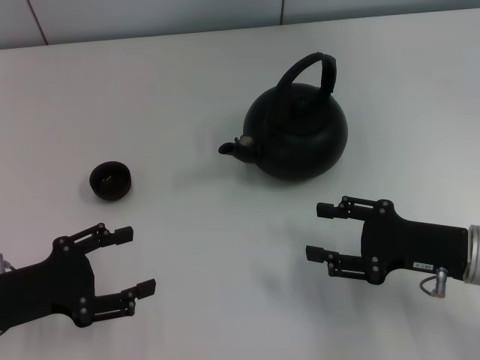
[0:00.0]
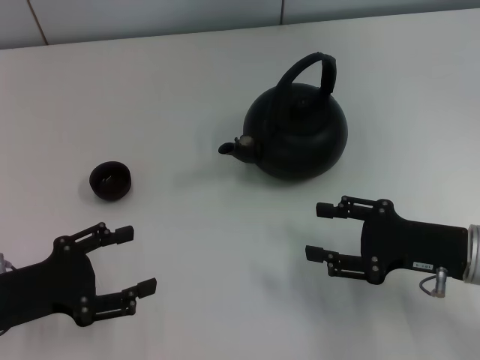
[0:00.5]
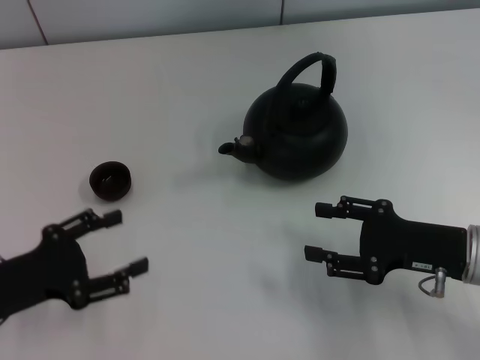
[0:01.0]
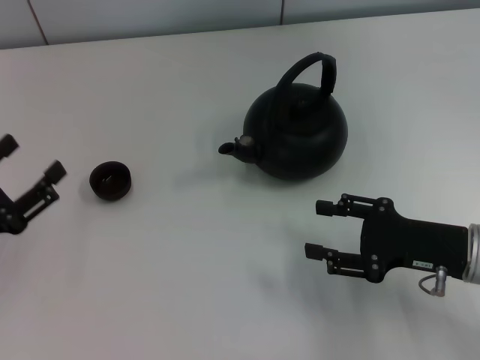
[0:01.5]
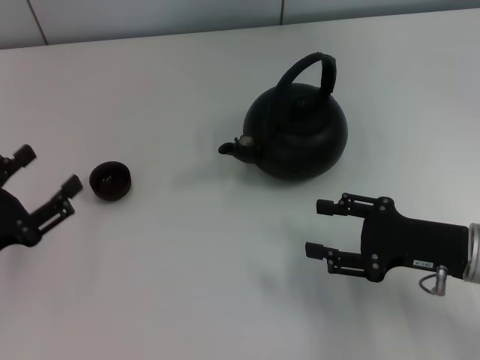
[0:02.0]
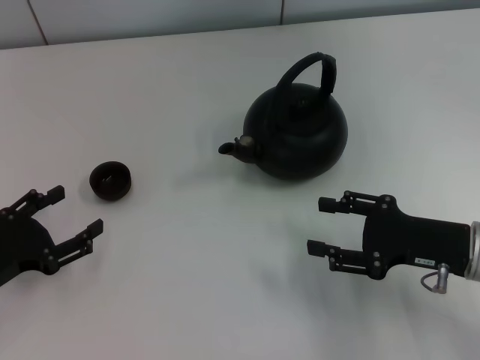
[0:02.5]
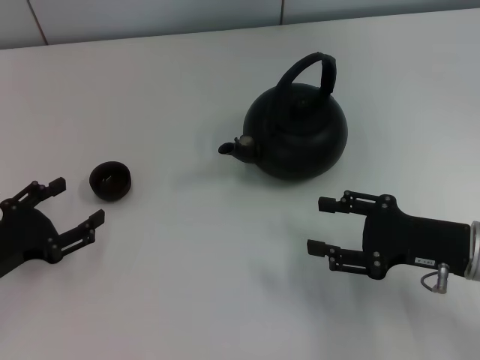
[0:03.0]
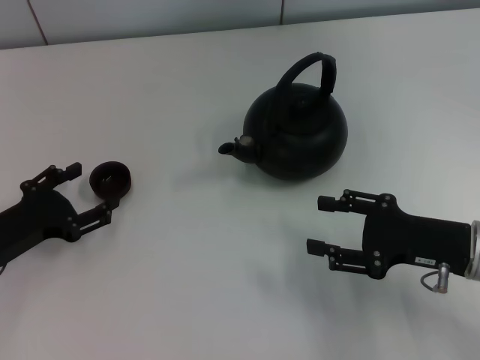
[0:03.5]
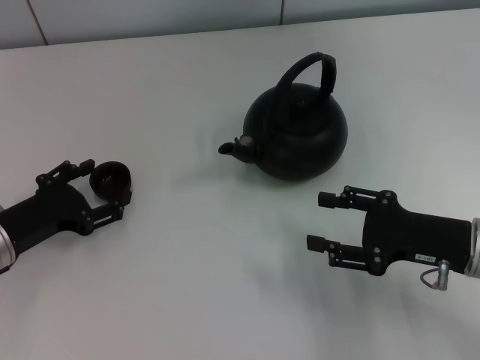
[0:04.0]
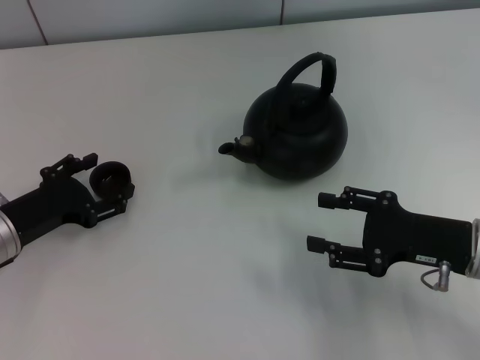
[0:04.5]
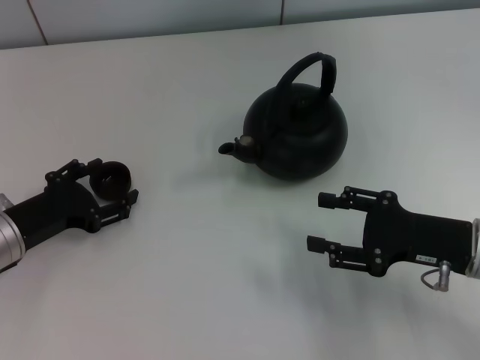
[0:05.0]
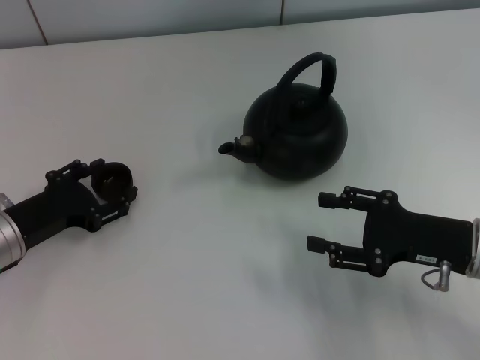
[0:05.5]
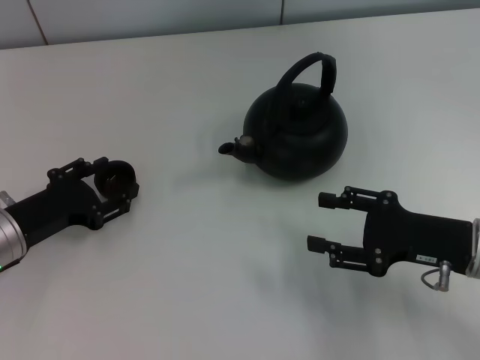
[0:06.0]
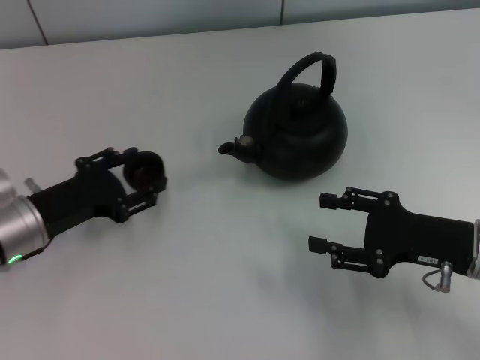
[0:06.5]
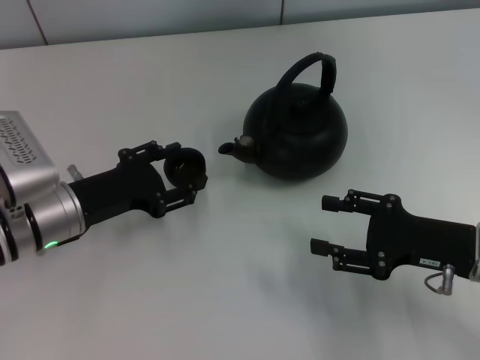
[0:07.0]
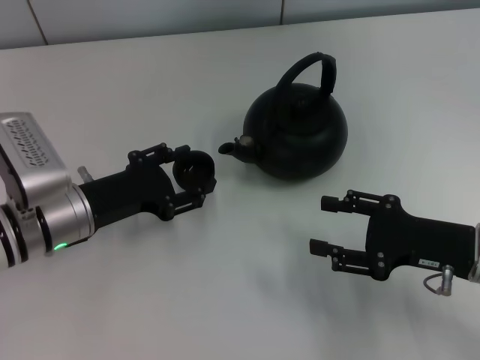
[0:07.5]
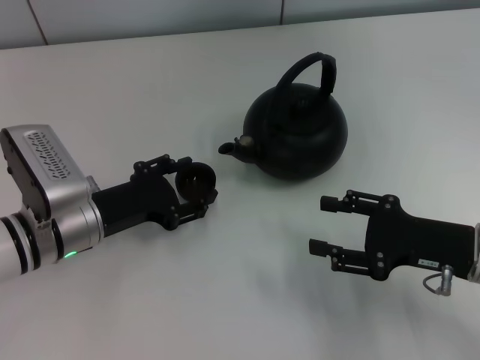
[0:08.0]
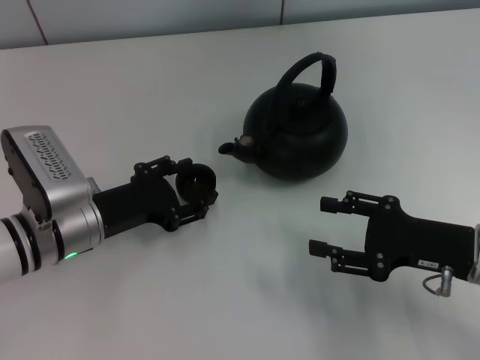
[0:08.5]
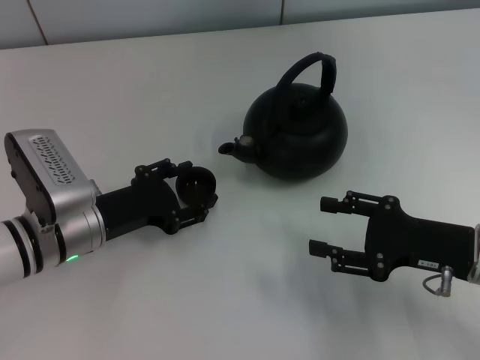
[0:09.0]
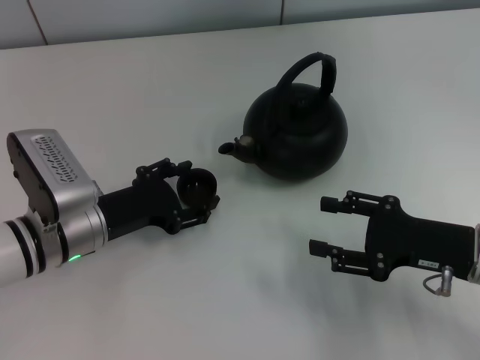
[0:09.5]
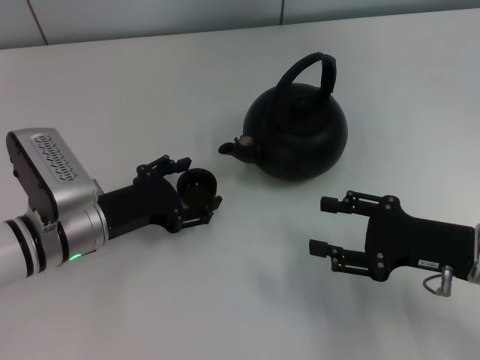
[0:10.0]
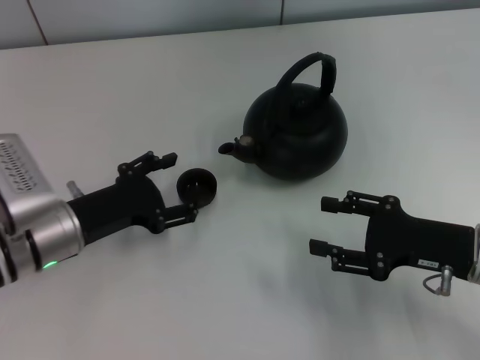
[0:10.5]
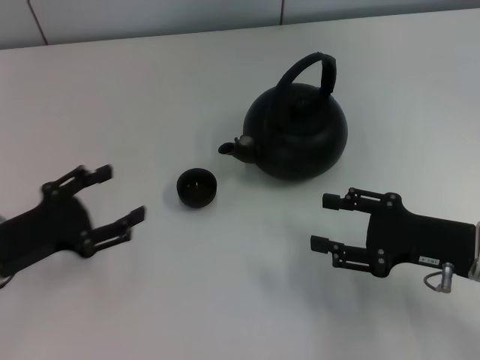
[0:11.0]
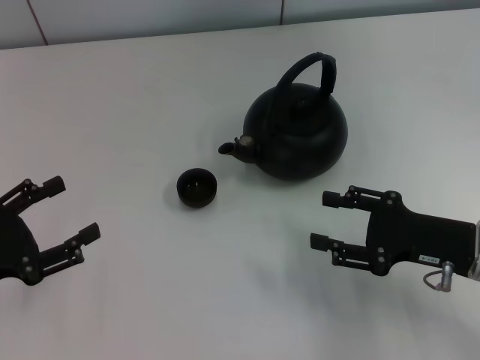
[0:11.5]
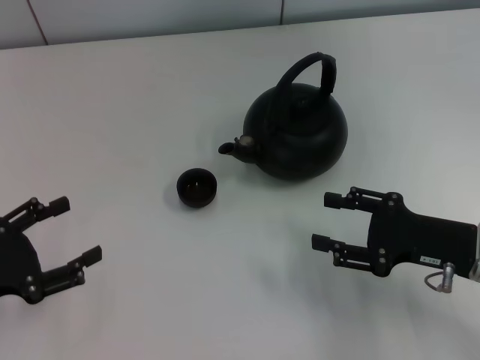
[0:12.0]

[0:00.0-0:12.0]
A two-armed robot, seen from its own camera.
Task of the whole recording: Grasp the handle of the teapot with one hand and pour tea into the teacup.
Step, 0:00.0 to 0:06.0: Pick up the teacup with the left gripper.
Step, 0:06.5 to 0:10.5: Place the teacup in the center of view with the left gripper.
0:02.0 to 0:04.0: The left gripper heads forward, covering roughly 5 cm.
0:04.0 to 0:06.0: The left gripper closes its fingers.
0:06.0 to 0:08.0: The left gripper shifts approximately 5 cm to the right, and opens up.
0:08.0 to 0:10.0: The left gripper opens its fingers.
0:10.0 to 0:12.0: The left gripper moves to the left and backward, roughly 15 cm.

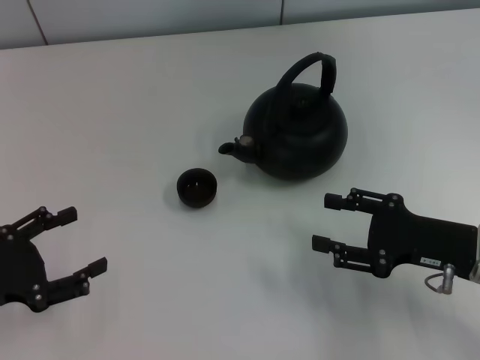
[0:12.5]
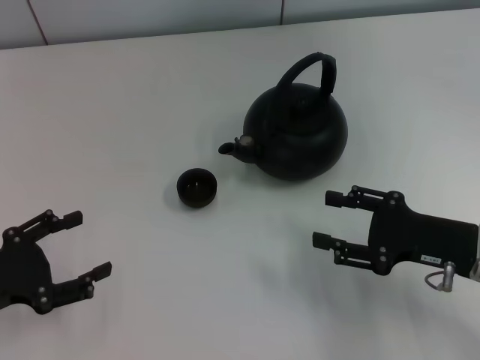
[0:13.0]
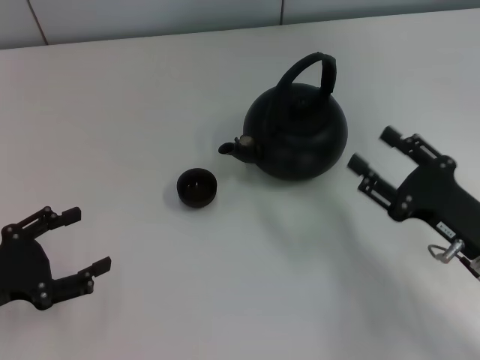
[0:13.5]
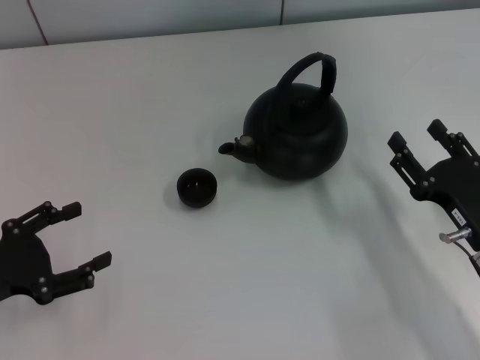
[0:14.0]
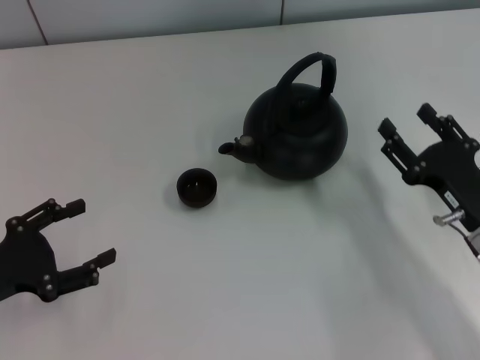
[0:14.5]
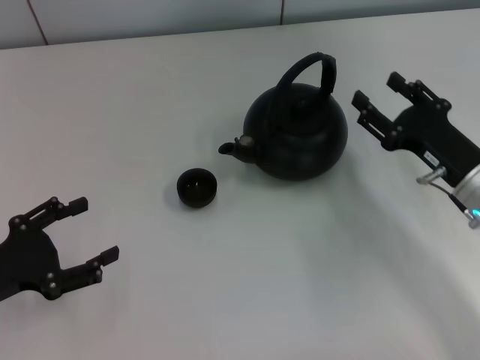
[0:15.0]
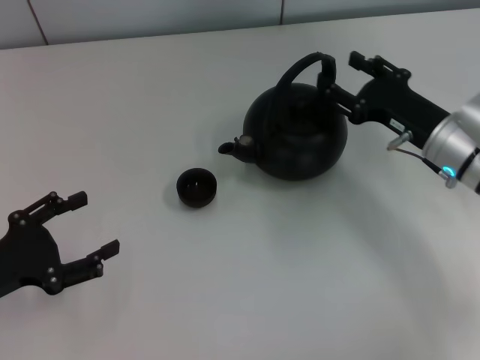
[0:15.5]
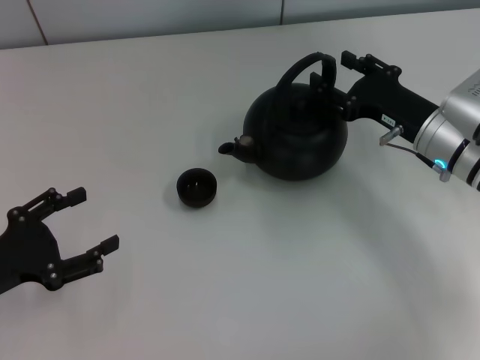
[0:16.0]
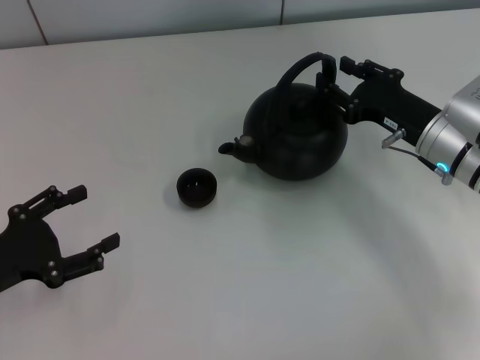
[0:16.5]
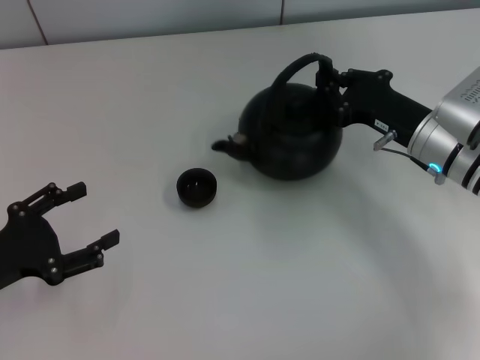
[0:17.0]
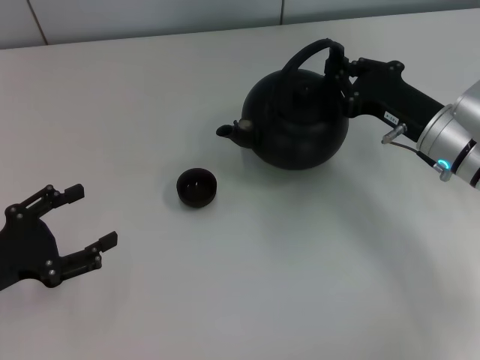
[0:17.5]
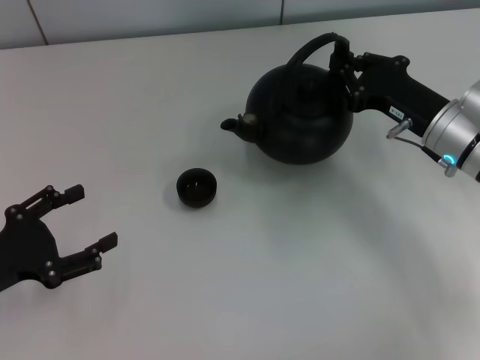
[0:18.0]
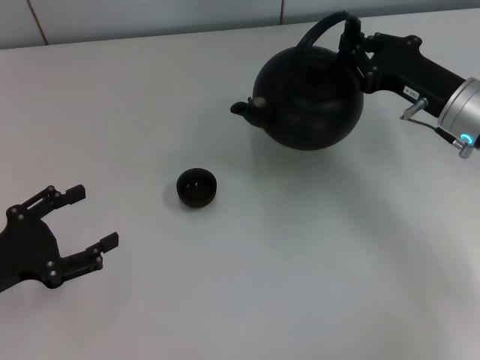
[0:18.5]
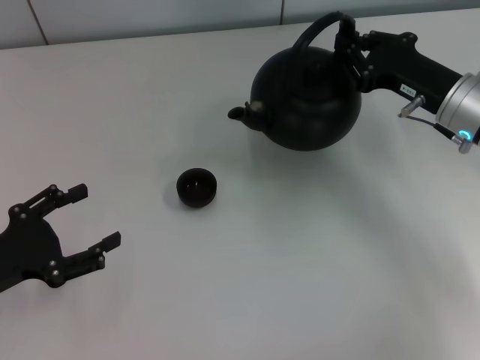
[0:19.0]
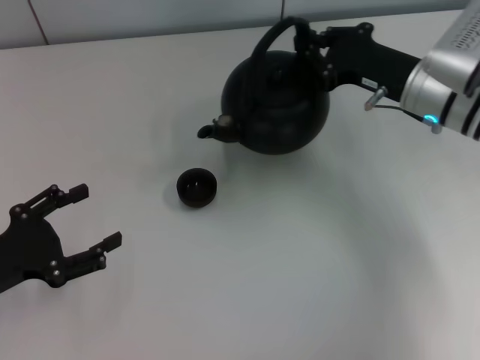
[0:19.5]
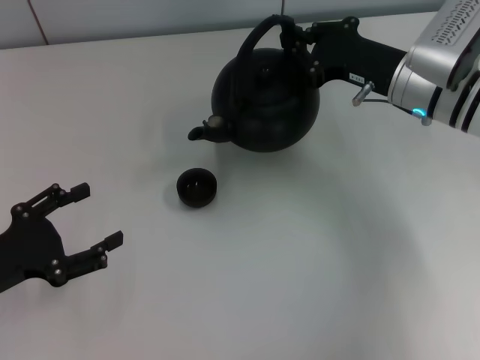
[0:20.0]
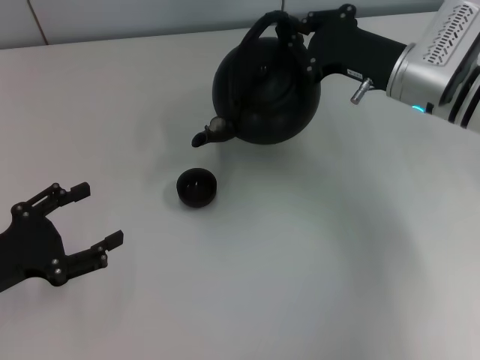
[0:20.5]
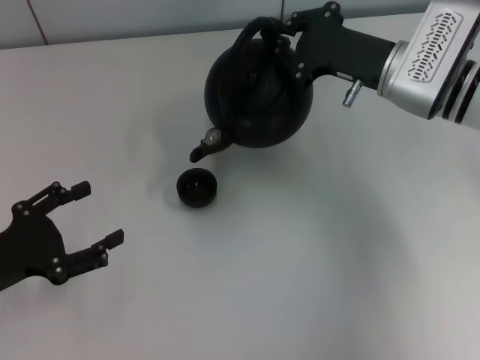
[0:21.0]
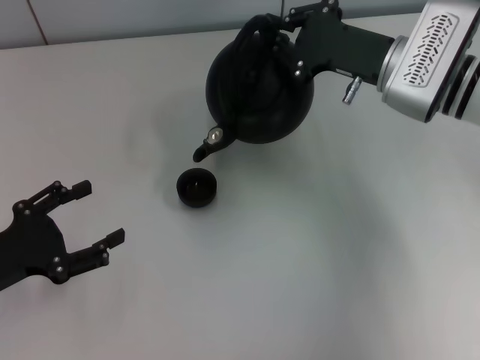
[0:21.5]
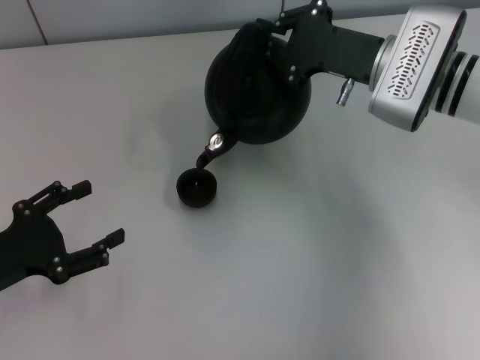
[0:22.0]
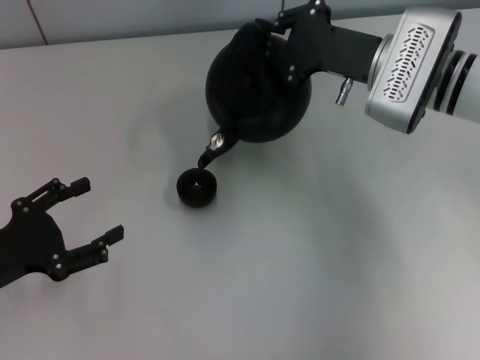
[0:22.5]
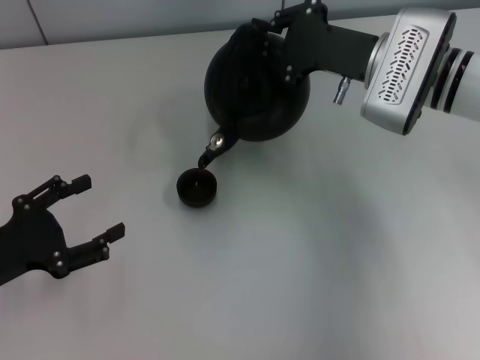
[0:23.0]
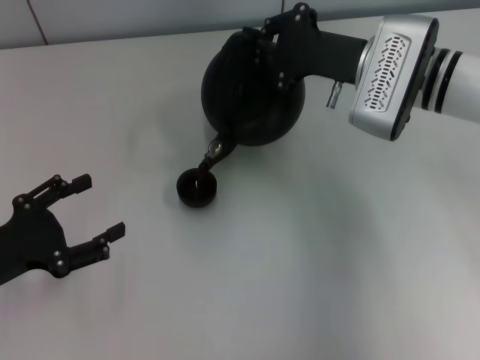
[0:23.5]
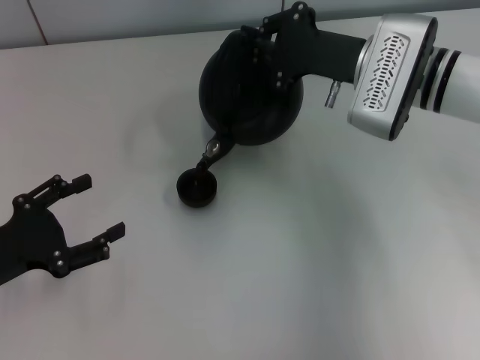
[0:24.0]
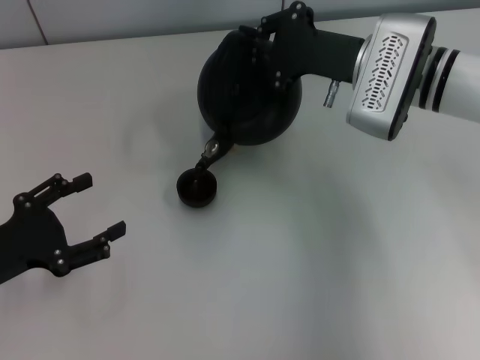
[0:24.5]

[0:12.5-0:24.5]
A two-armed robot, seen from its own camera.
Task of the whole recording: Grasp the handle of the teapot with one hand and pour tea into the teacup.
Step, 0:12.5 to 0:17.0: Pick up the teapot with the right gripper.
0:14.5 to 0:16.5: The right gripper travels forward by some 10 cm.
0:16.5 to 0:18.5: The right gripper closes.
0:18.5 to 0:20.5: The right gripper moves some 5 cm.
0:22.5 to 0:24.5: The grippers stay close to where they were, moving slightly.

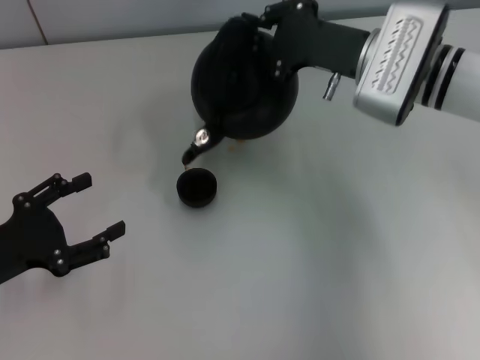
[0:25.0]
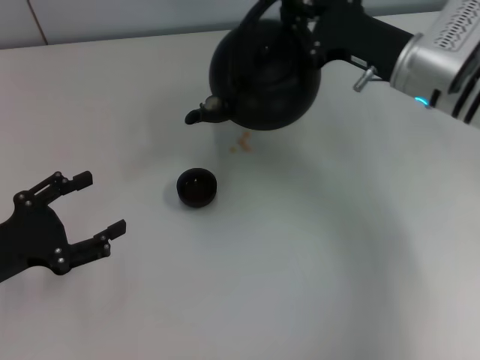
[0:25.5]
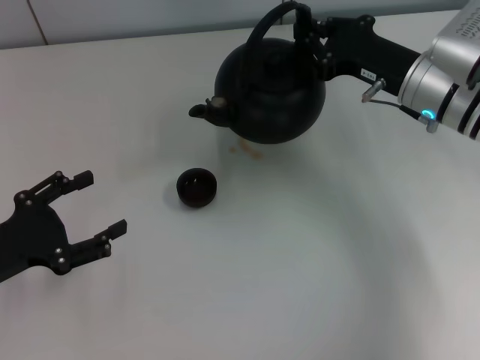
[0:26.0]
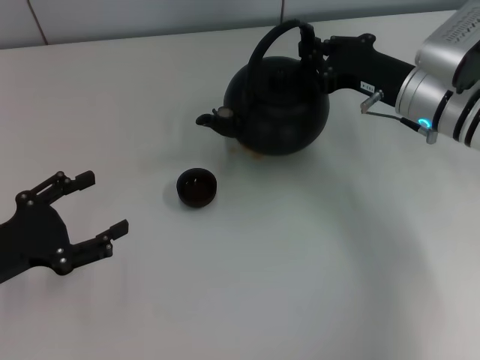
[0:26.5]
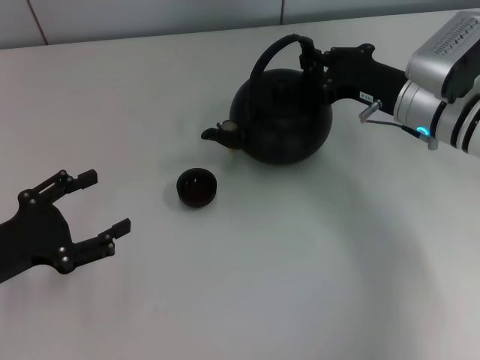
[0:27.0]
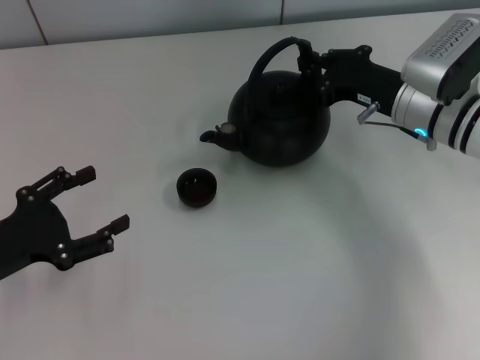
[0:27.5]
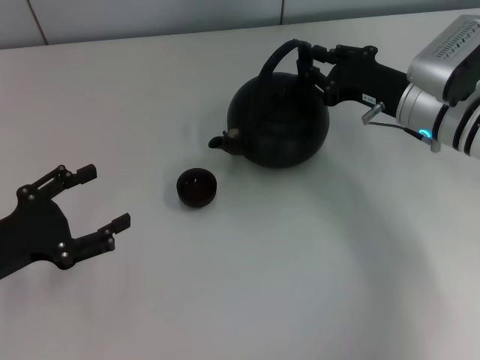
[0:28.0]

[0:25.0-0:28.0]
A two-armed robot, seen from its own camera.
Task of the whole recording: Grasp the handle of the teapot with one hand and pour tea into the teacup.
0:25.0 to 0:26.5: The right gripper shifts by approximately 5 cm.
0:26.5 to 0:28.0: Both grippers stay put.
